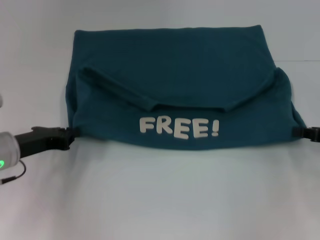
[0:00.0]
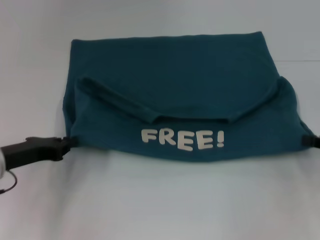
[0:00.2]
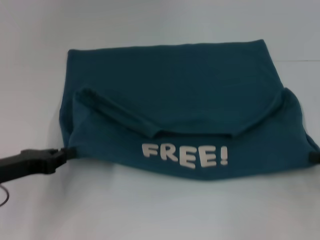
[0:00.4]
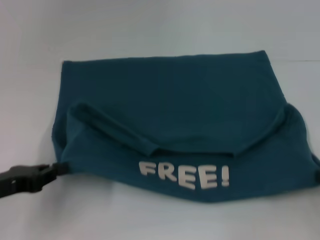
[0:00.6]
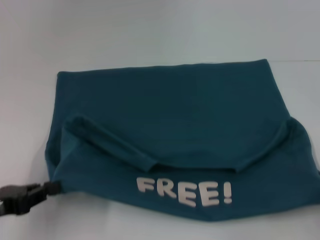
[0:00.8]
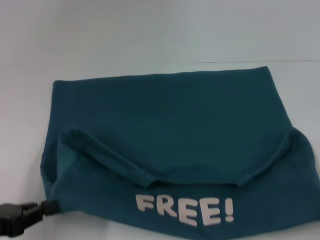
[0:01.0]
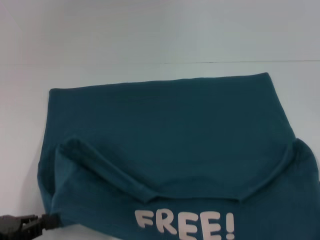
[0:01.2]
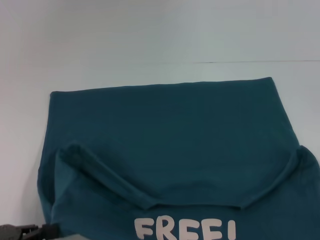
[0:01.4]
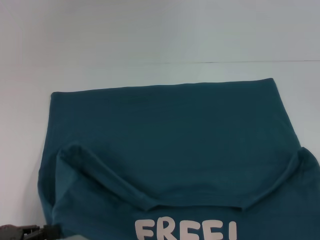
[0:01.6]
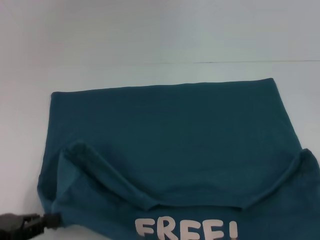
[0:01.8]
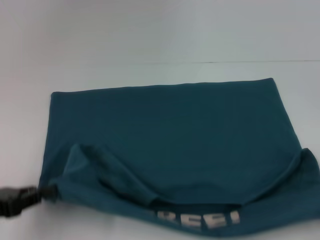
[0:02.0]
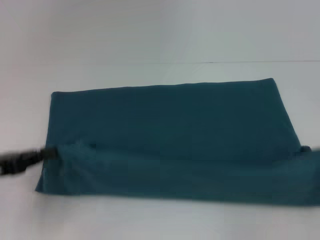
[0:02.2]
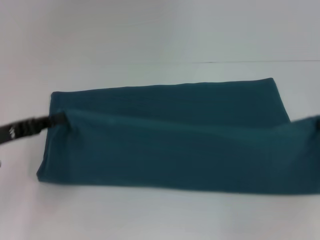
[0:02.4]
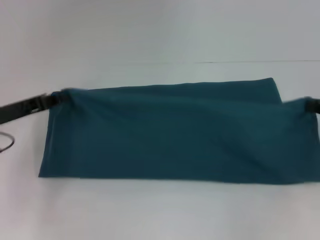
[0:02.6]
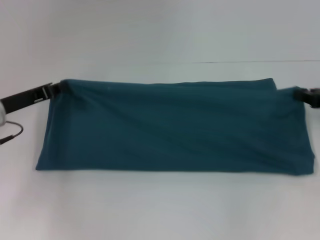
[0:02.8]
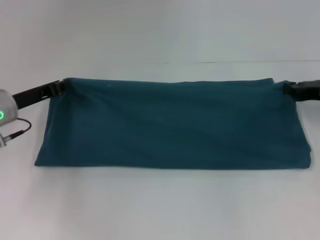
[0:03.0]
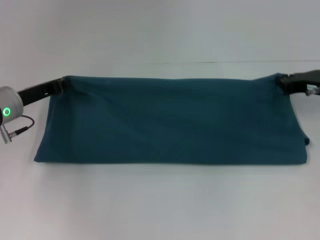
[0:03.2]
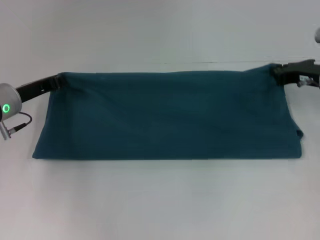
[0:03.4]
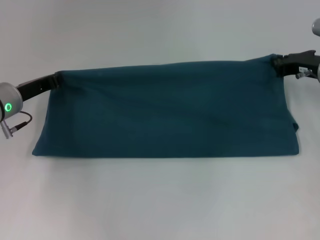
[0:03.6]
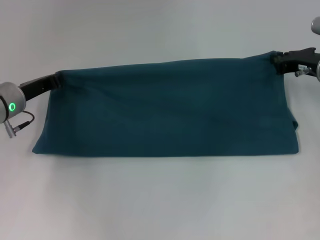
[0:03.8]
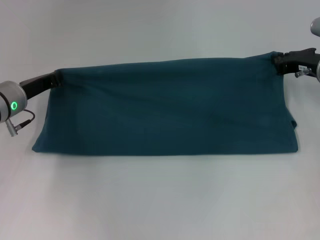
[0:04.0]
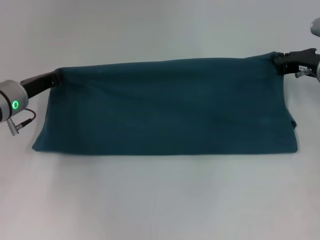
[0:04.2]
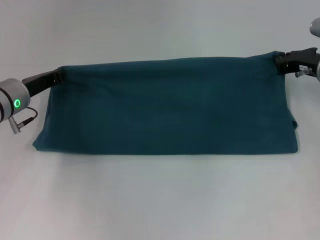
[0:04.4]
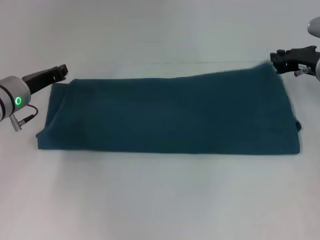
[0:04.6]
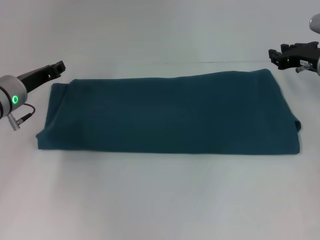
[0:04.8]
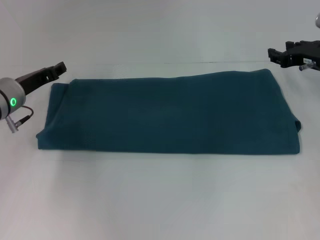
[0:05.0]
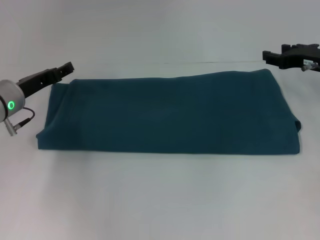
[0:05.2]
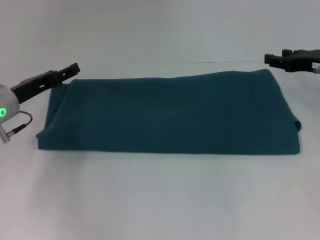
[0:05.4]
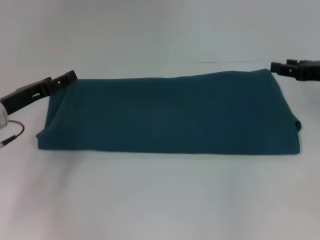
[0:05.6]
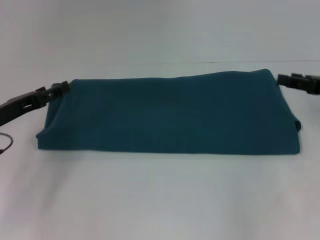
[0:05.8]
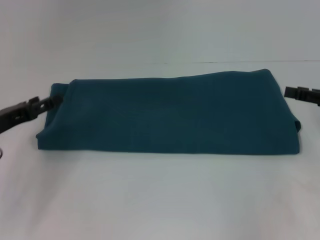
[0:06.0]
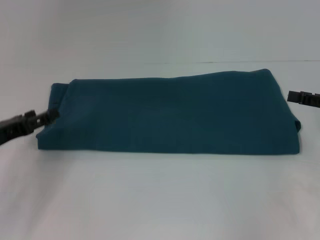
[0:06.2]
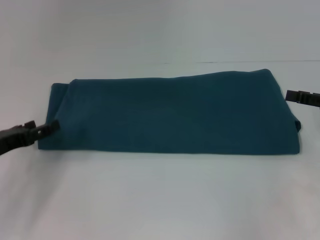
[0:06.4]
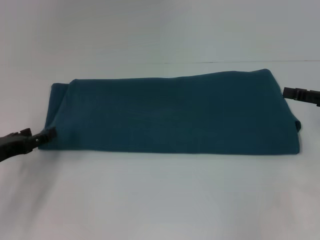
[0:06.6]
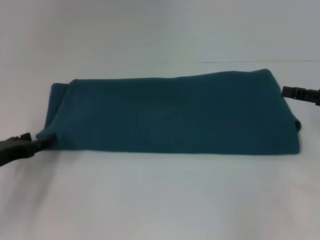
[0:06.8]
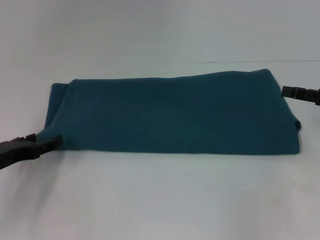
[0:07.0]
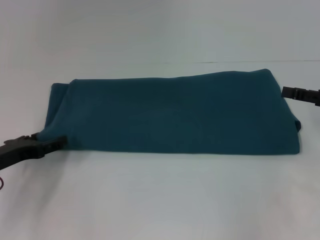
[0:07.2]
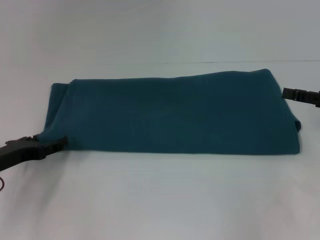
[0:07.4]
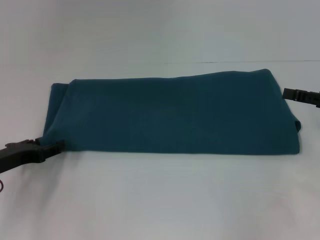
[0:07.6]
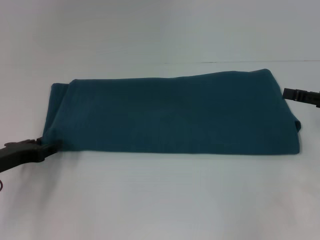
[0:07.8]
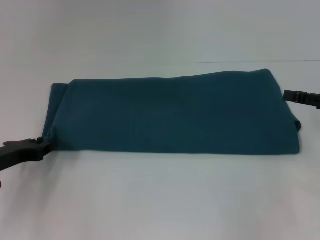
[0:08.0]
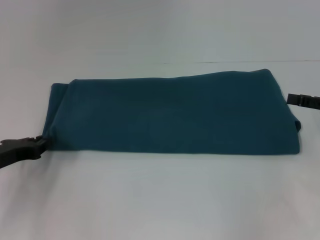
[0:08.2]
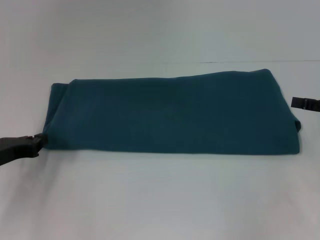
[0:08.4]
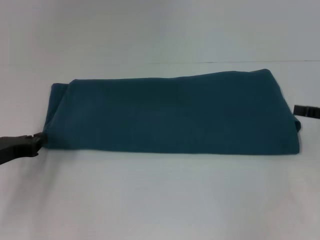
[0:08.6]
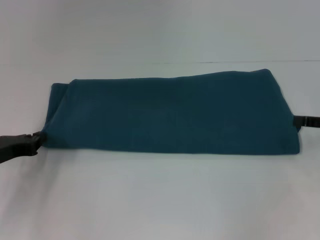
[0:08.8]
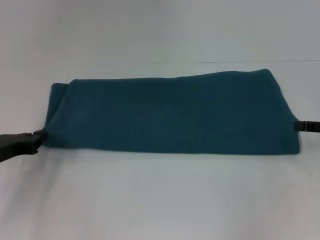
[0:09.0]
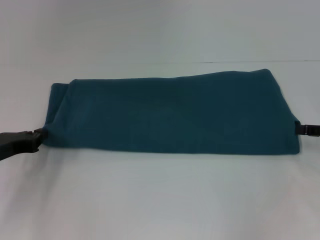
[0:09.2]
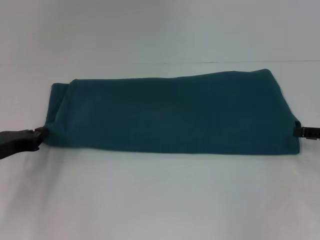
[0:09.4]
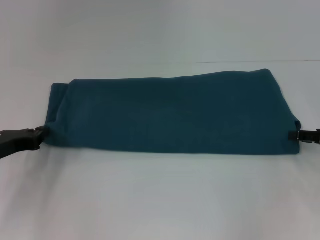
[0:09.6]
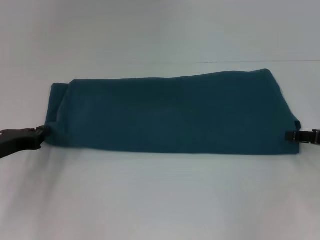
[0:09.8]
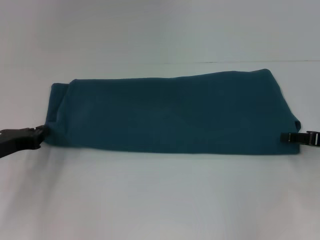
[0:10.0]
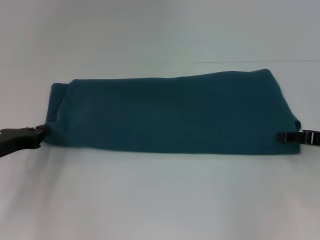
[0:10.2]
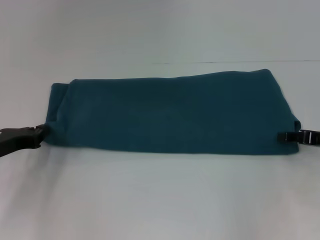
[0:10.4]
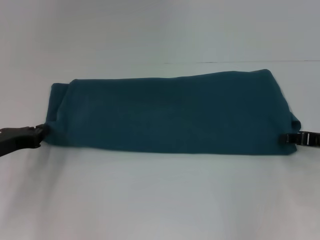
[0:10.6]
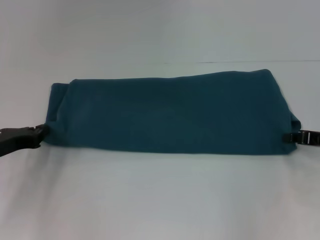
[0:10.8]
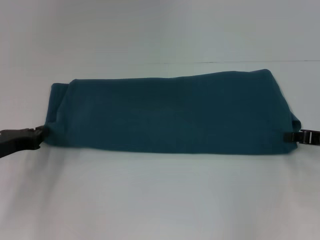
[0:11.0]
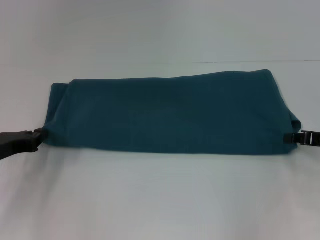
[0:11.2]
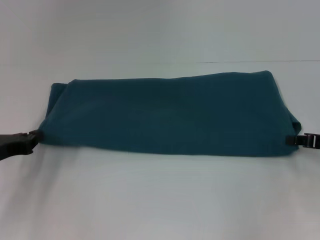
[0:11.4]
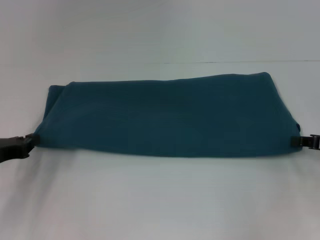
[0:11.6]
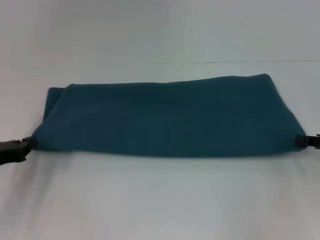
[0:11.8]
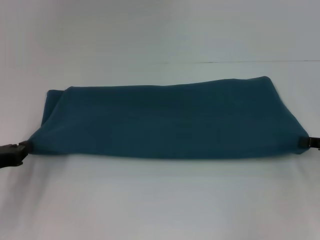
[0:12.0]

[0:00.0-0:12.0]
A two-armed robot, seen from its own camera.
Step, 0:01.8 to 0:04.6: Fold the clothes to the right.
0:00.0 to 0:01.6: Both grippers travel together backward, roughly 15 cm.
0:01.6 to 0:03.0: Both grippers travel together forward, some 20 cm.
0:03.0 to 0:04.4: The right gripper moves some 5 cm.
0:04.4 to 0:06.0: The right gripper travels backward and to the right by some 10 cm, and opens its fingers, while the left gripper moves backward and to the left, some 10 cm, and opens.
0:06.0 to 0:07.6: The grippers stay close to where they were, moving slightly.
0:07.6 to 0:09.0: The left gripper closes its fingers.
0:09.0 to 0:10.4: The grippers stay close to where they were, moving slightly.
0:10.4 to 0:12.0: The right gripper closes up.

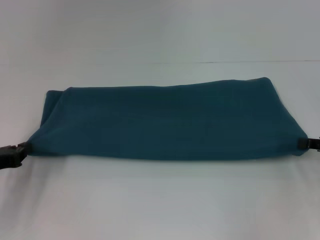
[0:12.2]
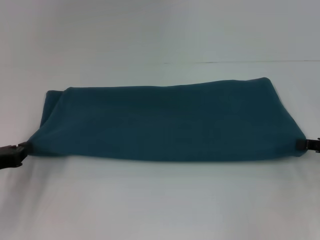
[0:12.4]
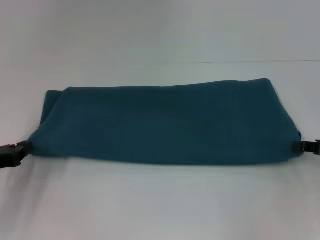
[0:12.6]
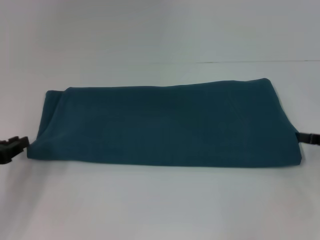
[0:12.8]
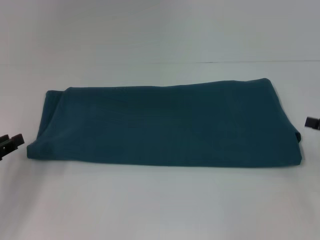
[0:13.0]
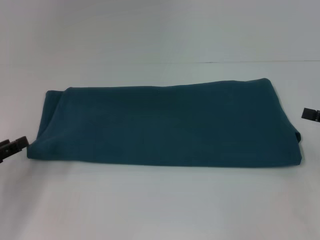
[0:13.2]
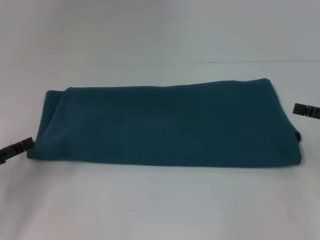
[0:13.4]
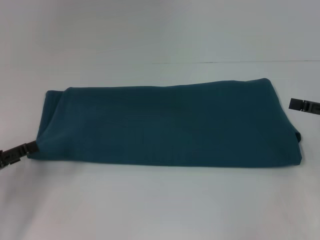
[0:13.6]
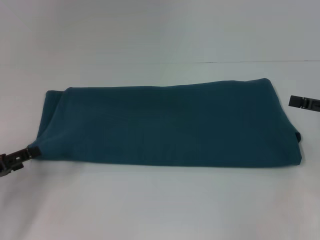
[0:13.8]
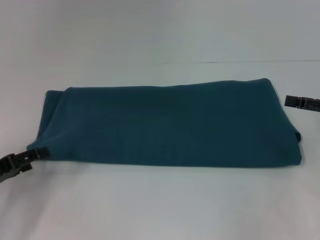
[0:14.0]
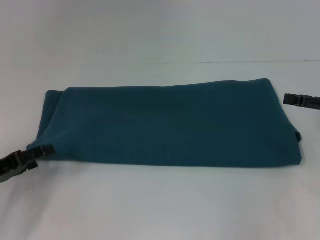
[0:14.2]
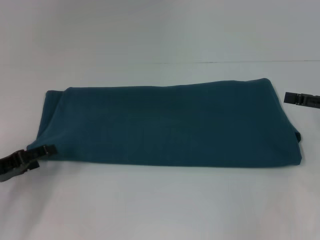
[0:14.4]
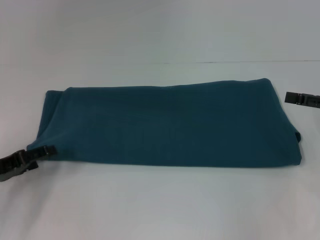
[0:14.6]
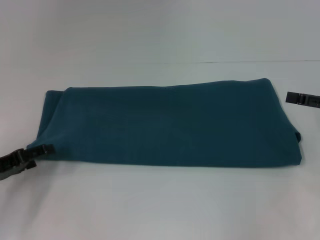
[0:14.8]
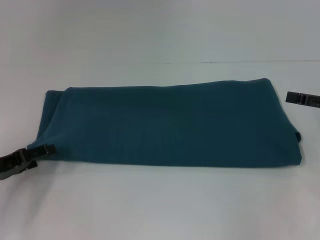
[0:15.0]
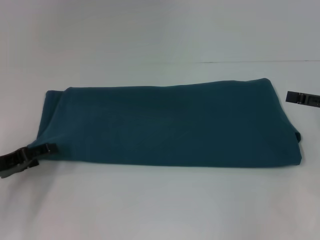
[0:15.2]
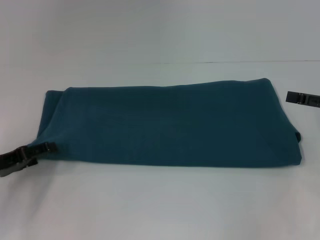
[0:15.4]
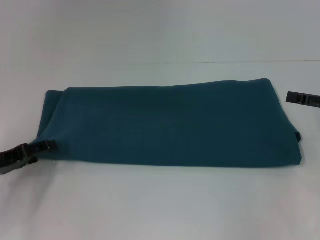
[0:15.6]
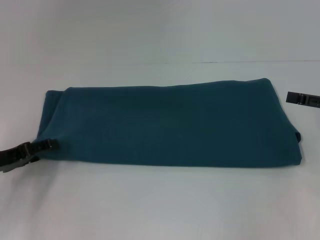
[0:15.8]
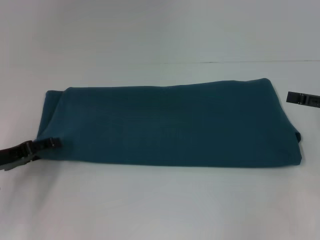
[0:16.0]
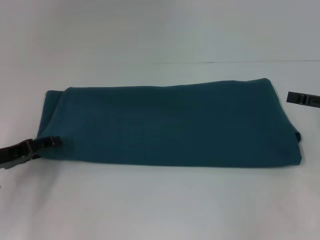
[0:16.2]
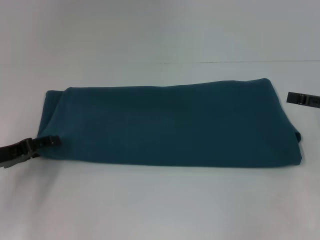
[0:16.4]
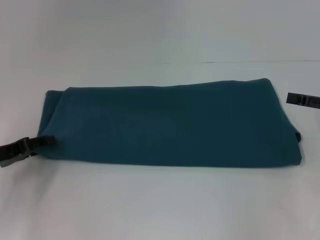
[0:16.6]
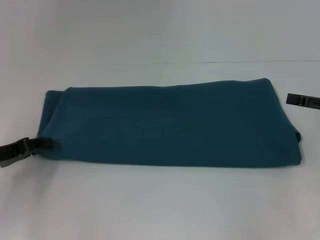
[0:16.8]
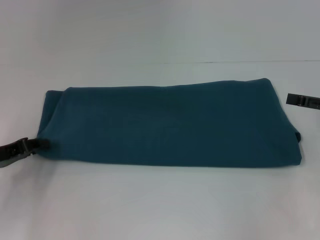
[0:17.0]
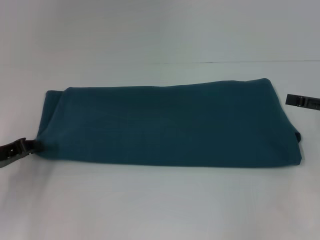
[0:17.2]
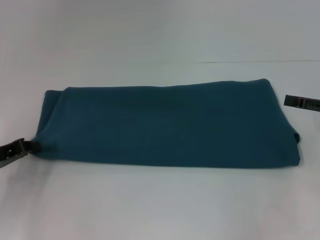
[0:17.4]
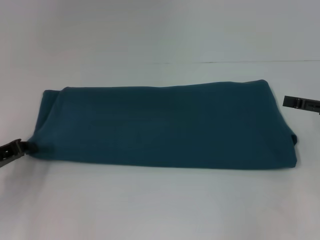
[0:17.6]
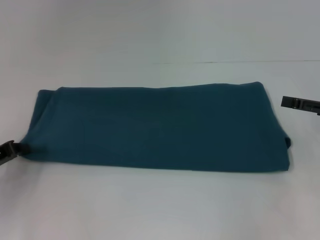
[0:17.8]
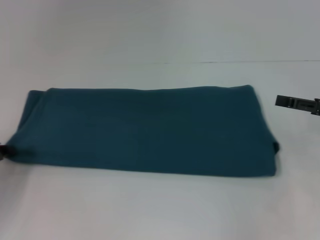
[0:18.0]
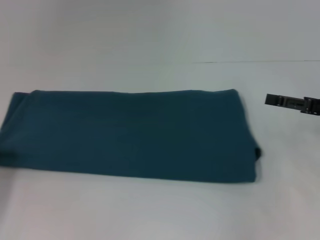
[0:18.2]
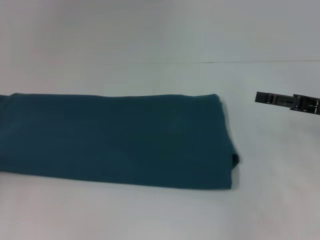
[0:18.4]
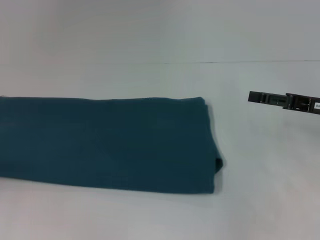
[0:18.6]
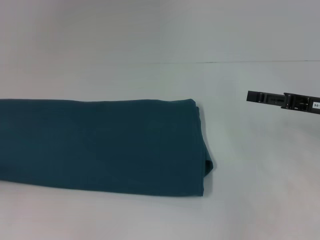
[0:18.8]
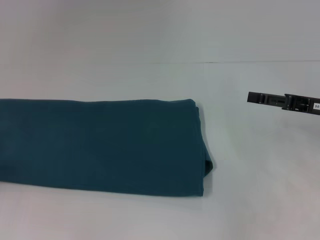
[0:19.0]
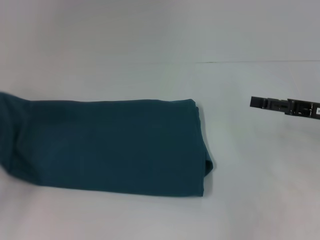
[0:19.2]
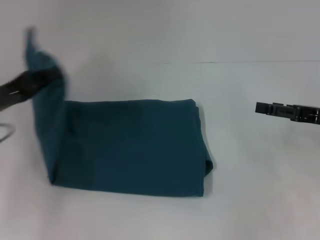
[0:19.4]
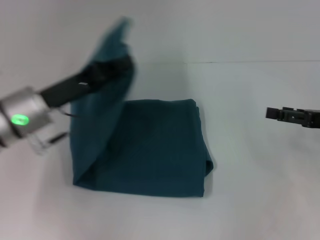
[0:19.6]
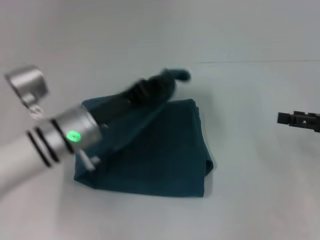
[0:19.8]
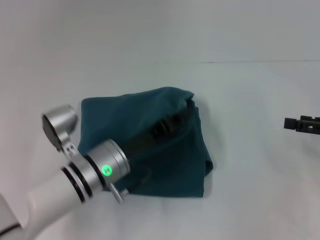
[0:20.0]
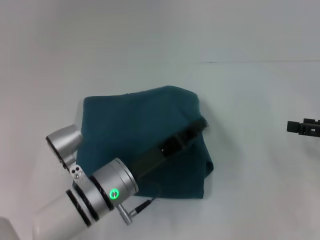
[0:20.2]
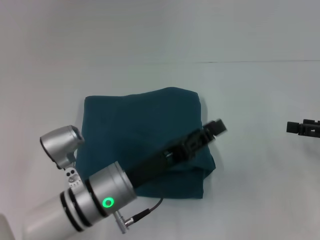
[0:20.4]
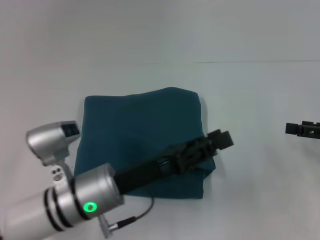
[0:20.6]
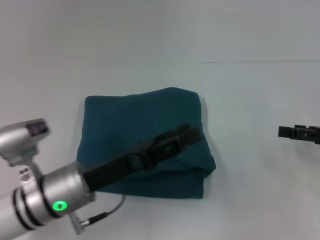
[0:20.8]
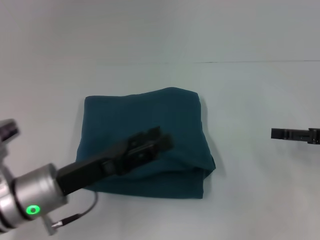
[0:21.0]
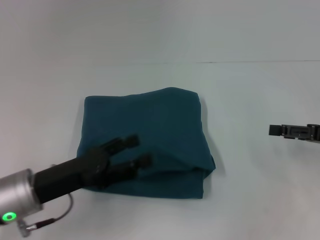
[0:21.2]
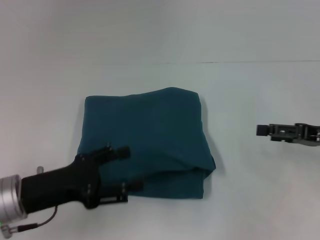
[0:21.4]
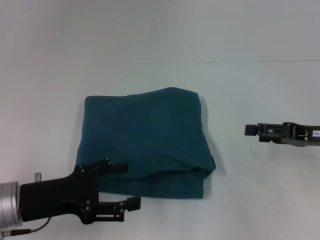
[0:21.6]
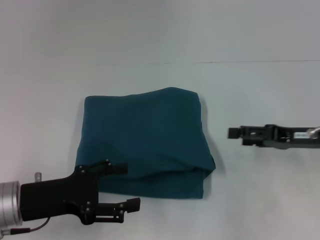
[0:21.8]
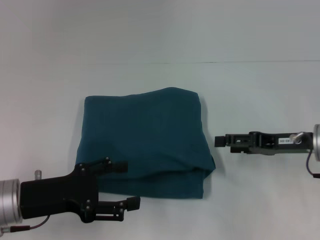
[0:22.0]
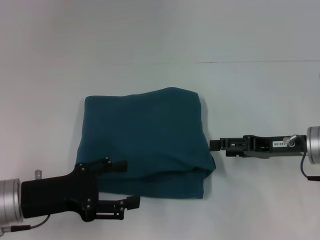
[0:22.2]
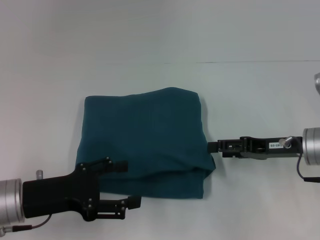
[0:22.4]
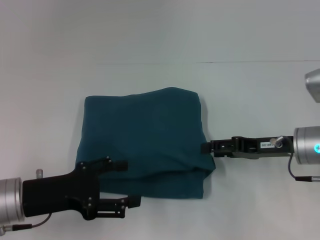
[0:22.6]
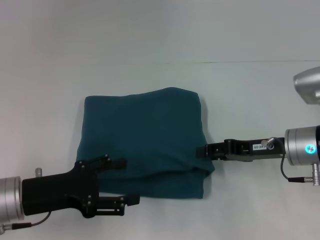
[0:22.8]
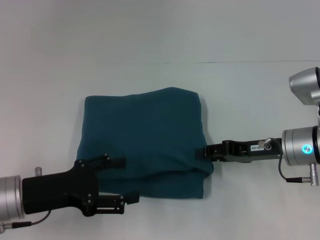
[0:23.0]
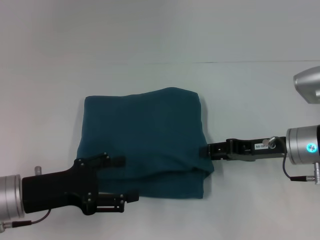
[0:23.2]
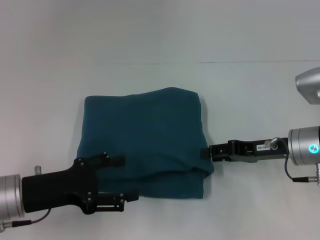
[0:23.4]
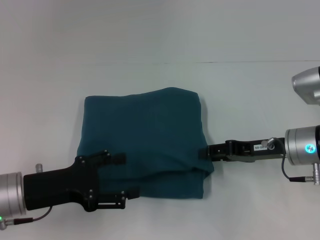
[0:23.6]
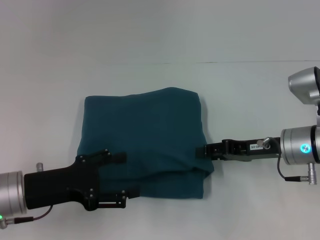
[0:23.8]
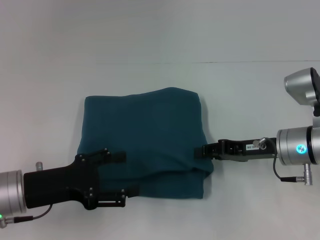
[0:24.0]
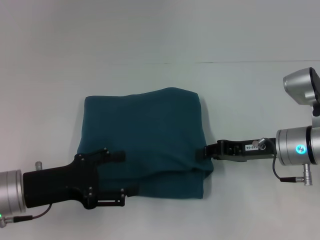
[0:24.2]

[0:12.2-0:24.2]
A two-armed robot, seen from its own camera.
Step, 0:12.2 to 0:20.2: Fold the clothes to the left.
0:12.2 to 0:13.8: The left gripper opens its fingers. The right gripper ends up about 5 cm from where it was, and opens up.
0:13.8 to 0:16.6: The grippers move only a little.
0:16.6 to 0:18.2: The left gripper travels to the left by about 5 cm, and closes its fingers.
0:18.2 to 0:19.8: The left gripper moves to the right, roughly 25 cm.
0:19.8 to 0:21.2: The left gripper moves backward and to the left, approximately 10 cm, and opens.
0:21.2 to 0:22.6: The right gripper is displaced to the left by roughly 10 cm.
0:22.6 to 0:24.2: The right gripper closes its fingers.
